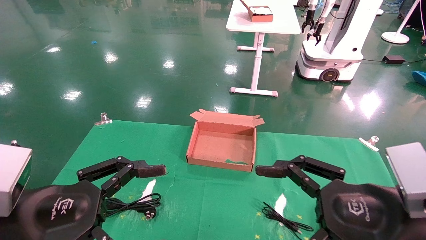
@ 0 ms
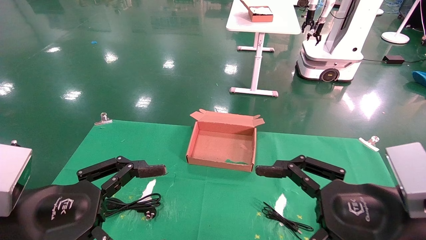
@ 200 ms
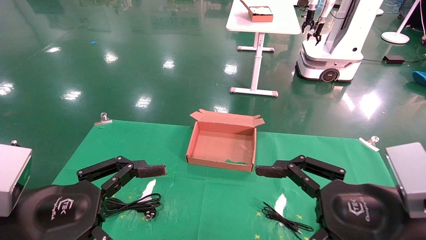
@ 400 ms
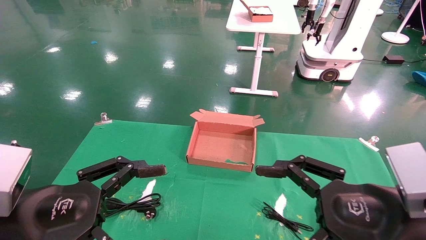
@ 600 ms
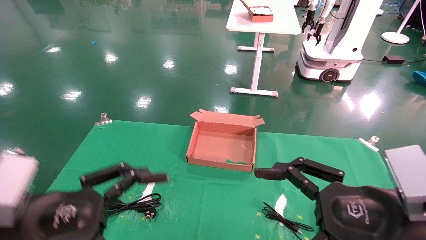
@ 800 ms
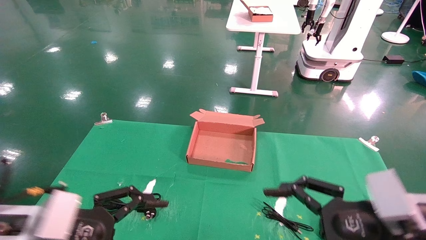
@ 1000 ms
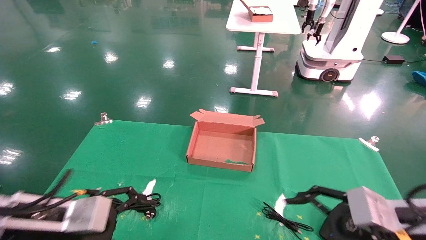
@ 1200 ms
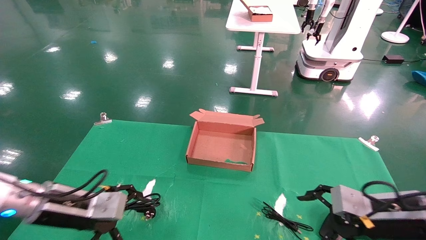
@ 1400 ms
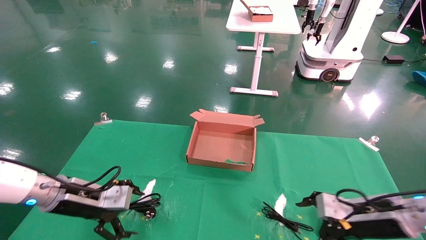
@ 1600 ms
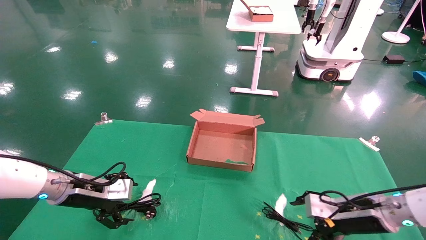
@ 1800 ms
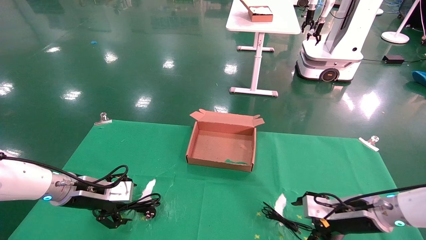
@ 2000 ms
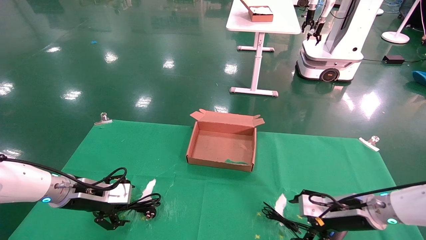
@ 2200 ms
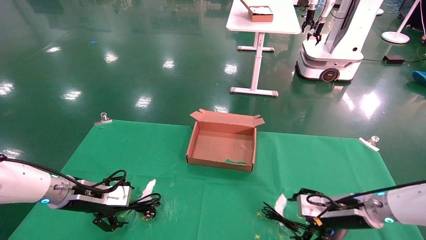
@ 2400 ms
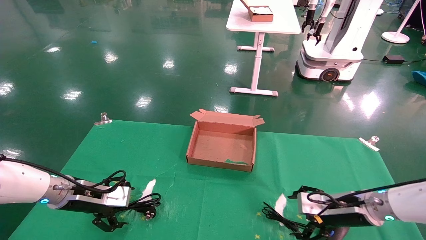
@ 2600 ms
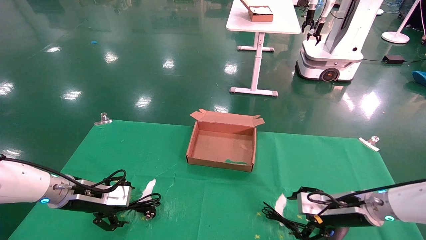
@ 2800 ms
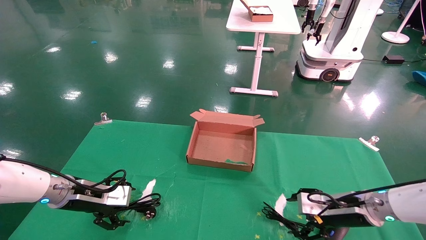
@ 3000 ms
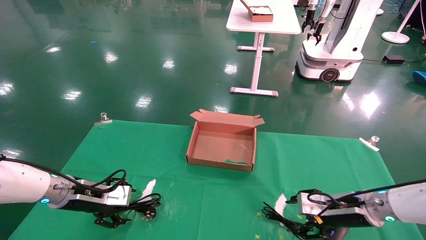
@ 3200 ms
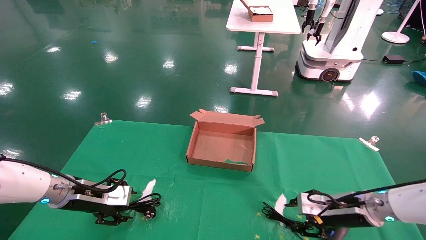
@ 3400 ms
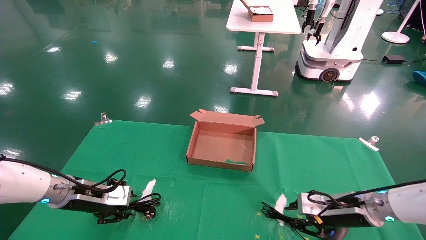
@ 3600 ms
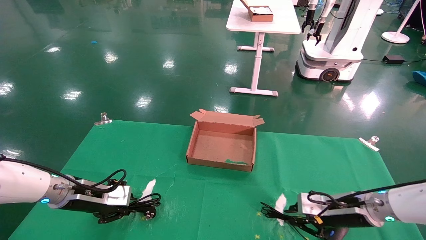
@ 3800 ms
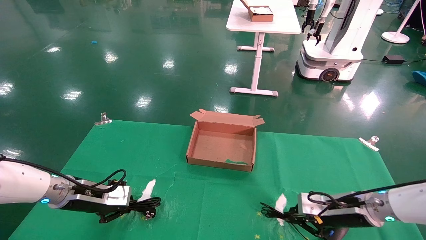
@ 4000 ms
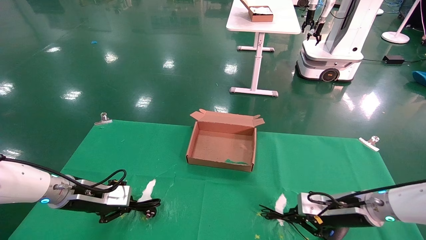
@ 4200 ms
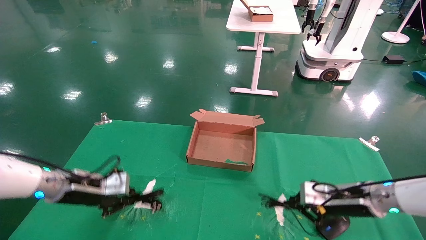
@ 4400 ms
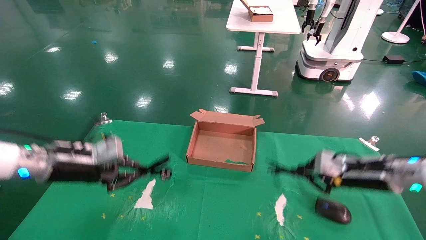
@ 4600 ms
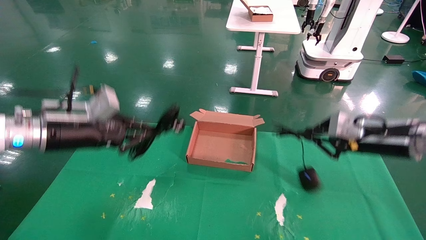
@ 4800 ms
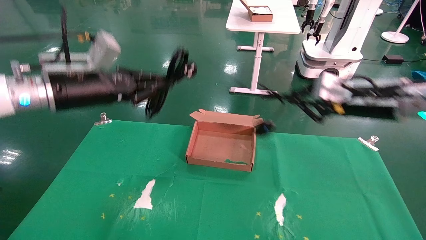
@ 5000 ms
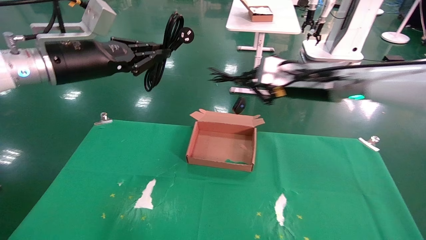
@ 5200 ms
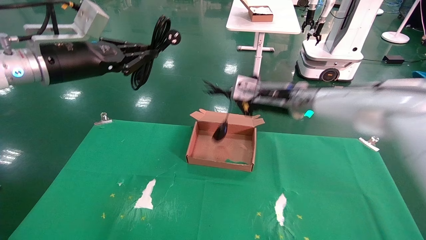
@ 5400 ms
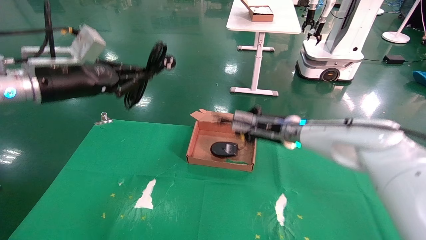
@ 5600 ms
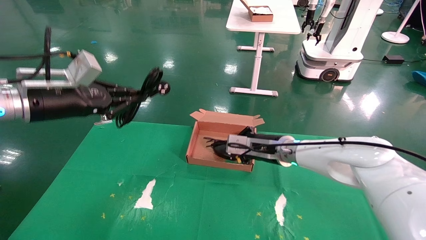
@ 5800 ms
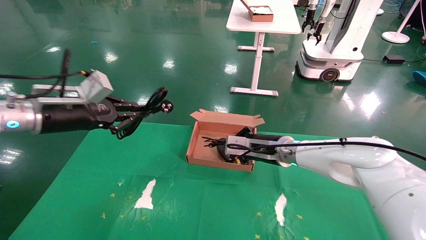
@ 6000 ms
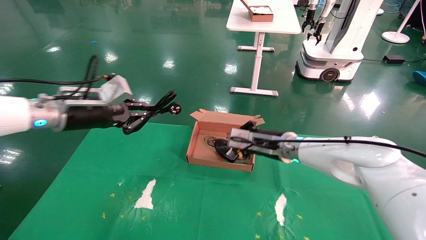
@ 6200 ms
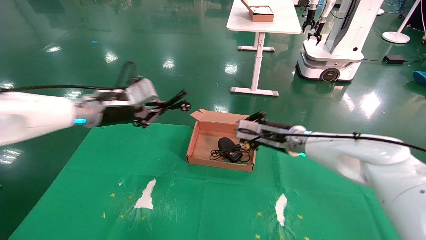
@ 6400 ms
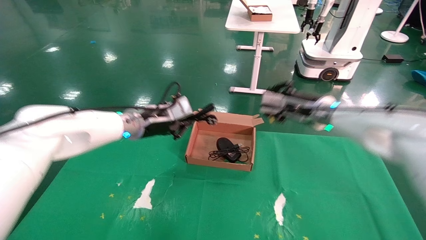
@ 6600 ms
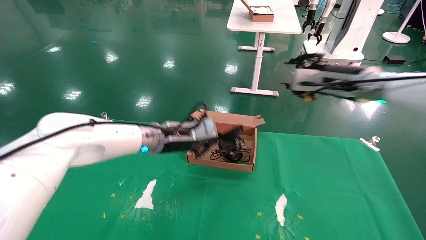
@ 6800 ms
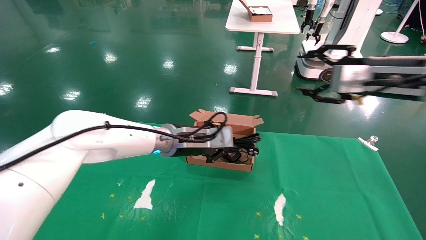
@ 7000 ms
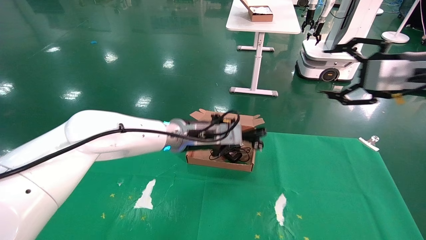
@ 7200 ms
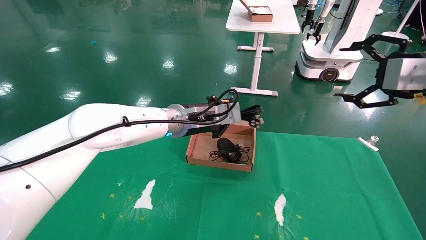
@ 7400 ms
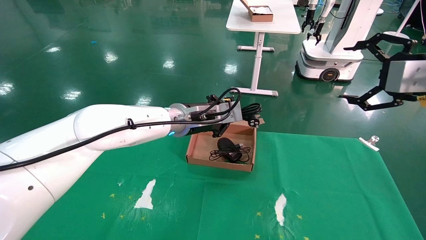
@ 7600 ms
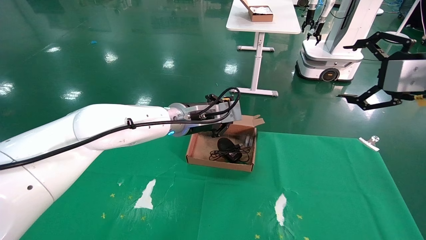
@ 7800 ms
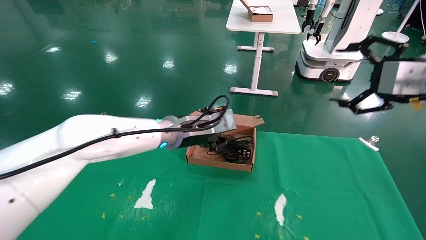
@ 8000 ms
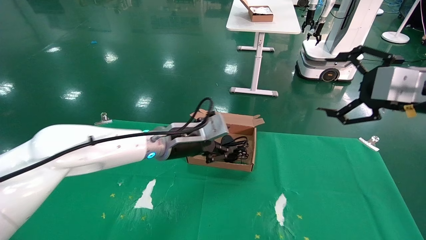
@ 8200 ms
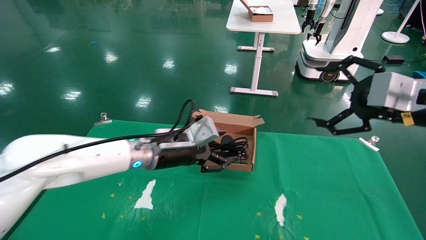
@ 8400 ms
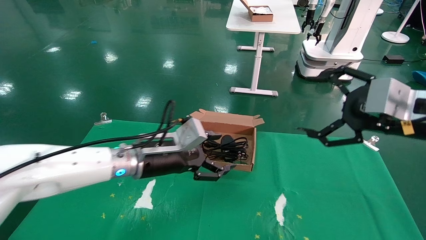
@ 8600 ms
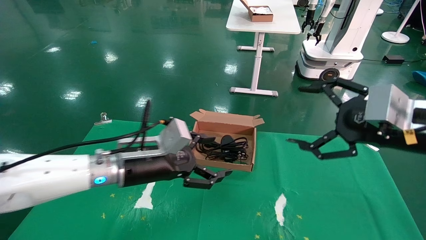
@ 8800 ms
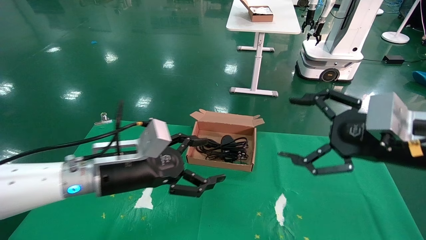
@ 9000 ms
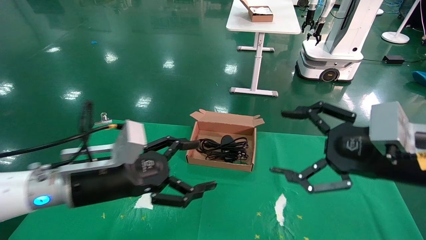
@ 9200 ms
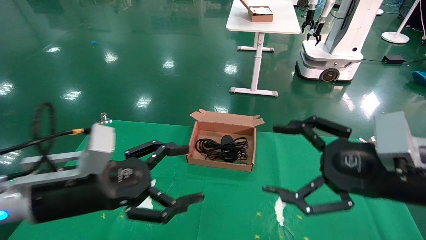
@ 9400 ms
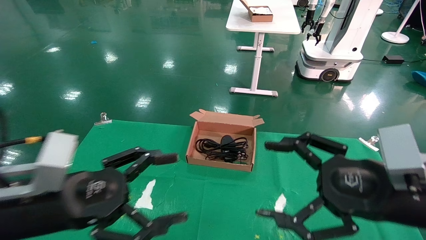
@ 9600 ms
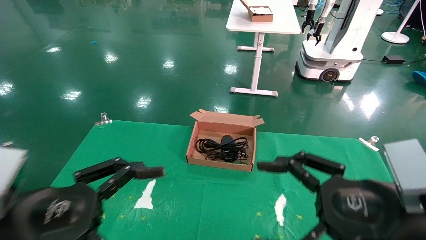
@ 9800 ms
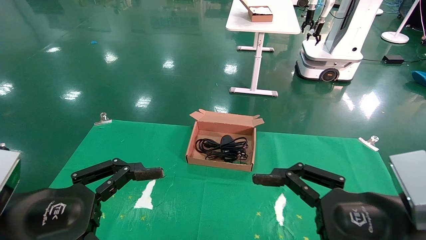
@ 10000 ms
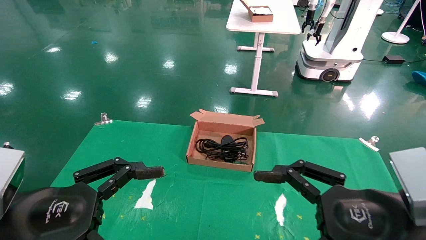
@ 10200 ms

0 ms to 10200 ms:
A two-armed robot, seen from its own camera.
Step, 1000 ms to 3800 ms: Grab and lift both the mouse and power cord from the accessory packaging area at the same time.
Step, 4000 ms to 9000 ms: Place the mouse and power cord into the box.
0 ms to 1400 ms: The right gripper heads forward, downward and to the right, covering some 15 cm; the left gripper heads forward, covering approximately 15 cm.
1400 ms to 3000 ms: The right gripper is displaced forward and downward by some 10 cm, while the left gripper heads forward, covering some 10 cm.
3000 ms to 4400 ms: The right gripper closes up, while the left gripper closes.
4400 ms to 5800 ms: The left gripper goes about 15 cm upward, while the right gripper heads to the left, forward and upward, covering approximately 20 cm.
5800 ms to 7200 ms: The right gripper moves to the right, upward and backward, about 30 cm, and opens up. Meanwhile the left gripper goes approximately 25 cm to the right.
7200 ms to 8800 ms: The right gripper moves downward, backward and to the left, some 10 cm, while the left gripper shifts some 15 cm backward and to the left, and opens.
8800 ms to 10200 ms: The left gripper is displaced backward and to the left by roughly 20 cm. Meanwhile the right gripper moves backward, downward and to the left, roughly 15 cm.

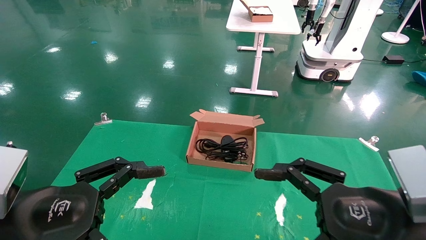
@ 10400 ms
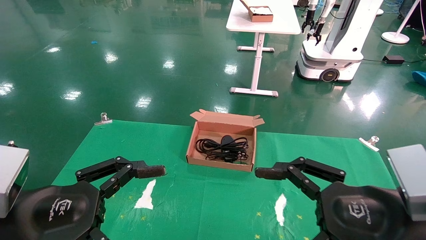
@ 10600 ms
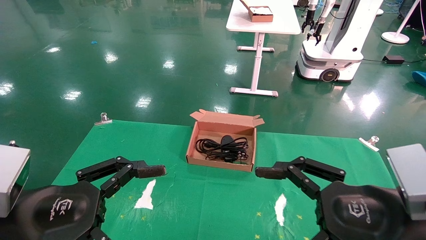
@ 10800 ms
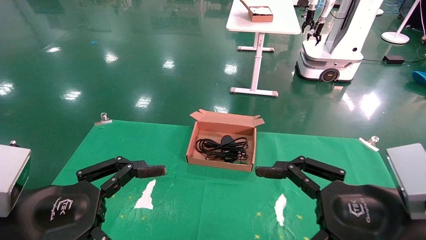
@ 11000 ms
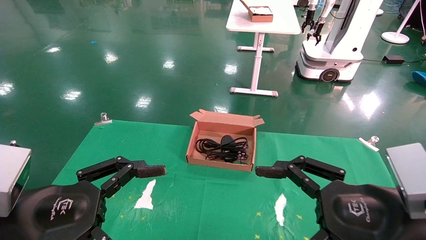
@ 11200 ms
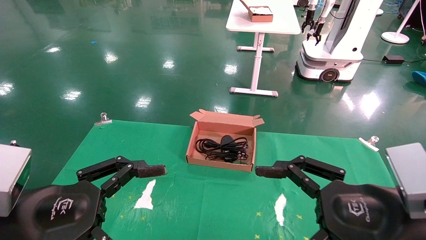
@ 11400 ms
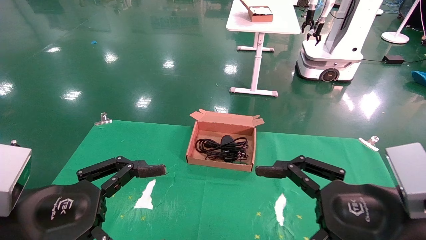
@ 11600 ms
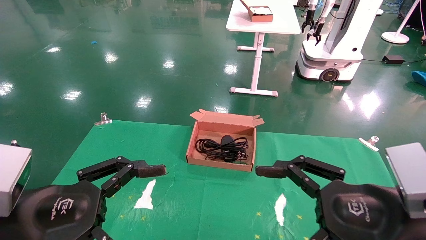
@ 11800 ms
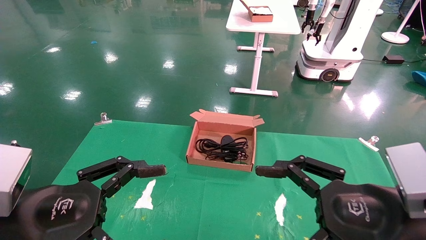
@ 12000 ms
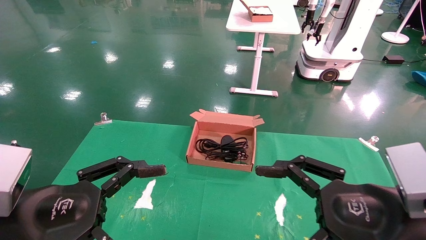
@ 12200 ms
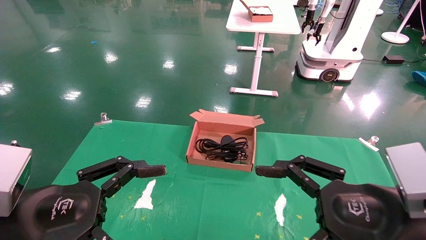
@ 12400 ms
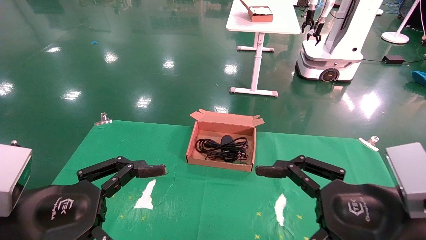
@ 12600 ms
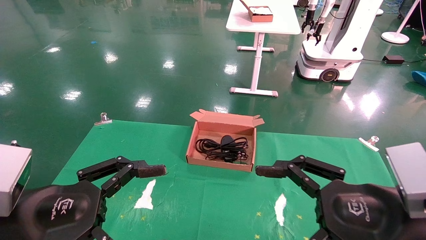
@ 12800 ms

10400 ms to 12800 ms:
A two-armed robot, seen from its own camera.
10400 ms to 12800 ms: Both grippers stay about where they are.

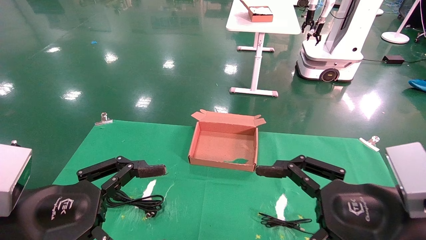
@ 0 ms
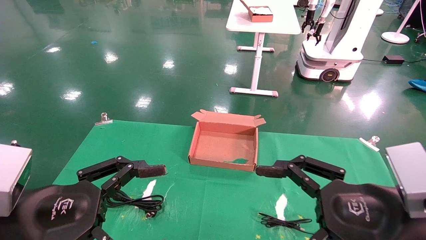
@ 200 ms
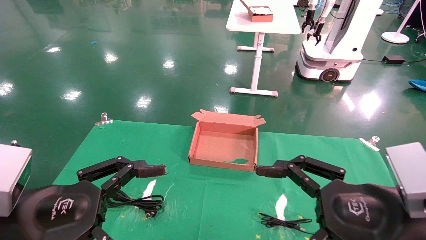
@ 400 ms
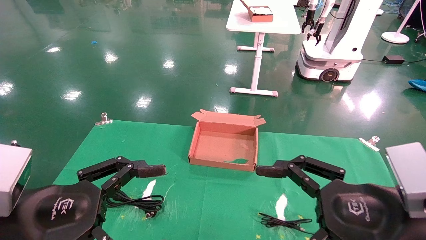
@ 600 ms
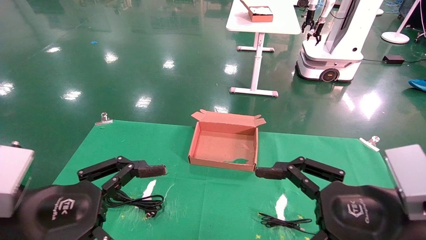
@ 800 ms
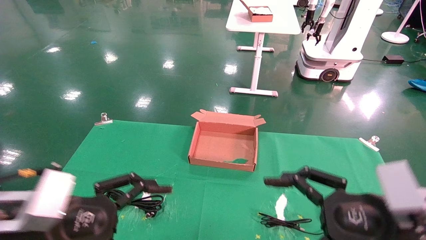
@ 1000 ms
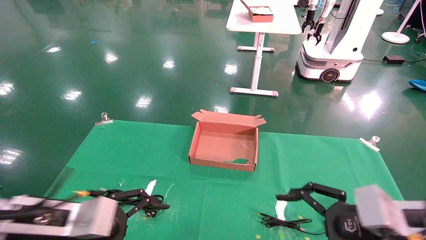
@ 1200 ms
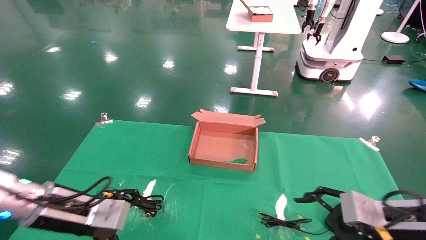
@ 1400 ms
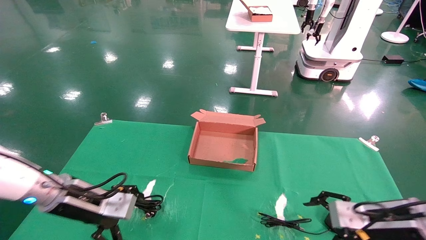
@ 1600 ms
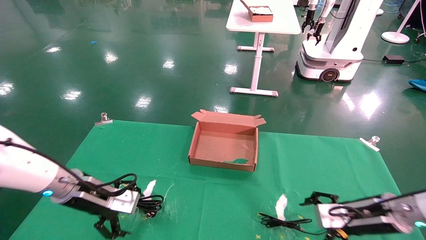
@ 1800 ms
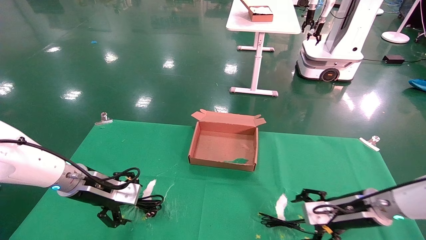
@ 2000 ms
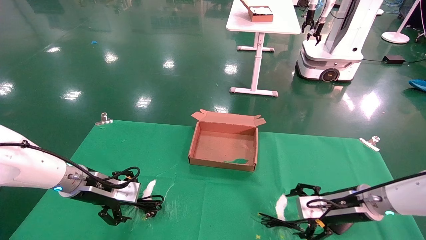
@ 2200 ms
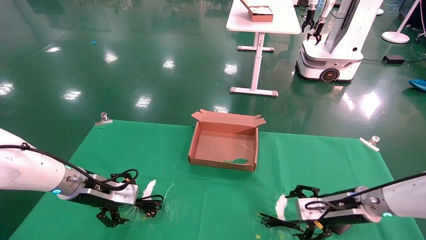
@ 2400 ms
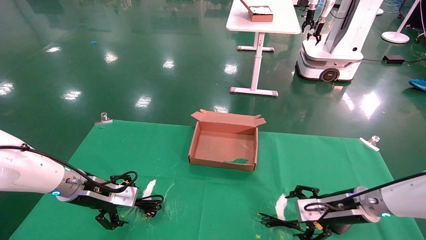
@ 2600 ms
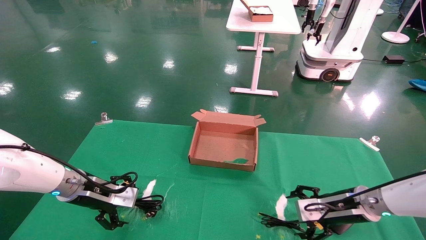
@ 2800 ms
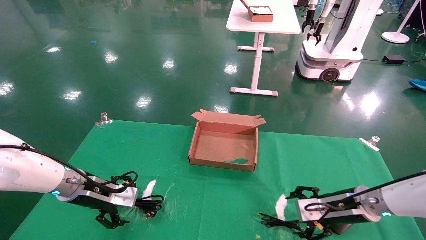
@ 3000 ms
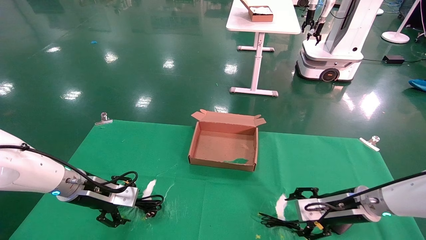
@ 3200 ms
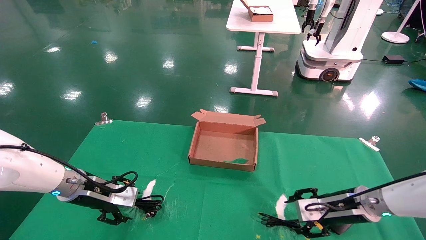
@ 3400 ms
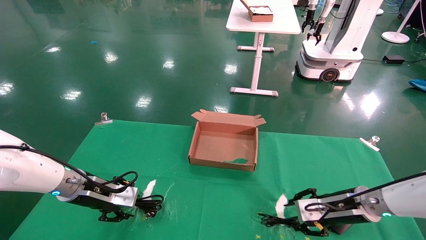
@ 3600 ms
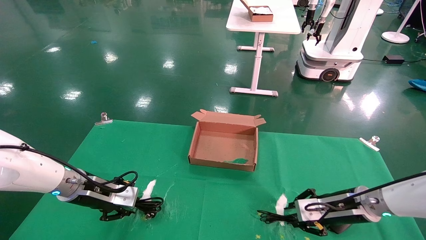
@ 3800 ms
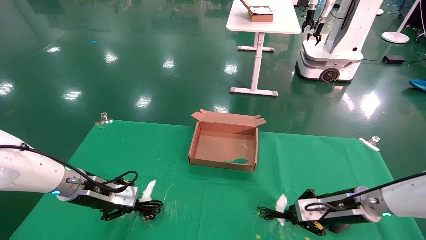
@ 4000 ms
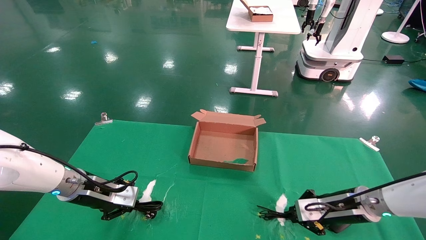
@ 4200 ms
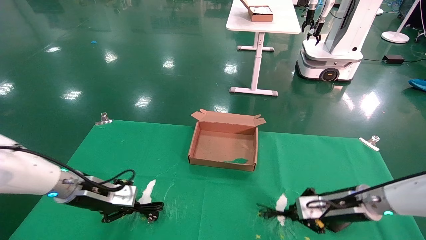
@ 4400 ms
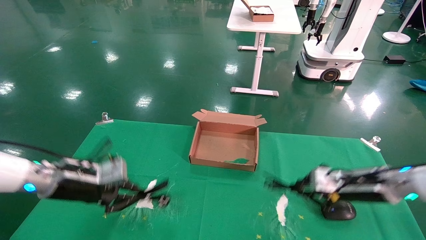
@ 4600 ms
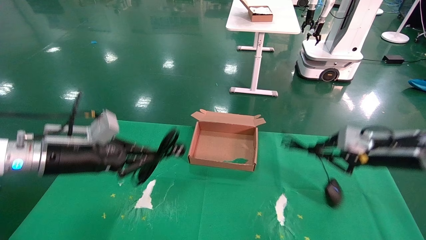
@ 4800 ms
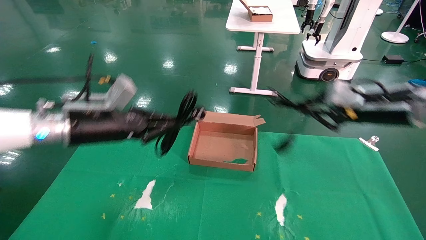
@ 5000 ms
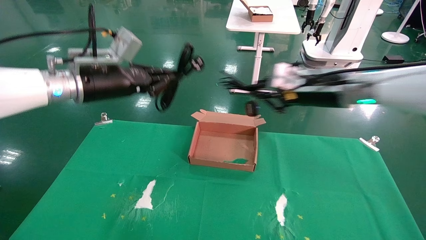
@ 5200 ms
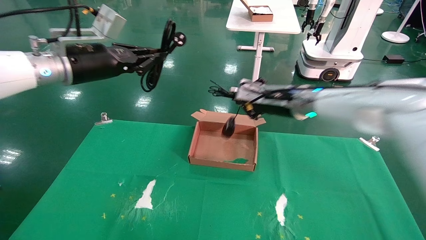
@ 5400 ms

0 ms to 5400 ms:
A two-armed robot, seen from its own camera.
Step, 1200 ms to 4000 ms: Grab and lift both the mouse and power cord from the accessory packaging area at the same time.
0 ms to 1400 ms: The right gripper goes some 15 cm forward, downward and to the right. The left gripper is displaced forward by approximately 15 cm.
1400 ms to 2800 ms: Both grippers travel together forward, some 10 cm.
2800 ms to 4000 ms: The right gripper closes up; the left gripper closes up.
4000 ms to 5400 ms: The left gripper travels upward by approximately 25 cm. The right gripper goes some 20 cm upward and to the left.
